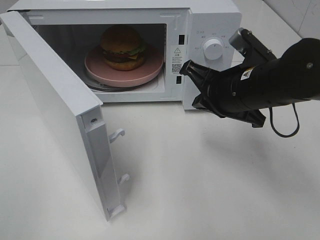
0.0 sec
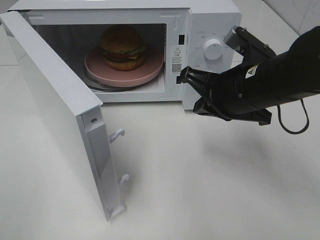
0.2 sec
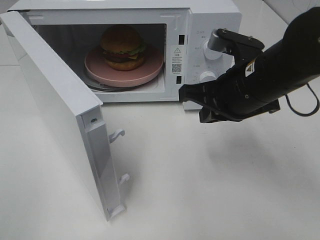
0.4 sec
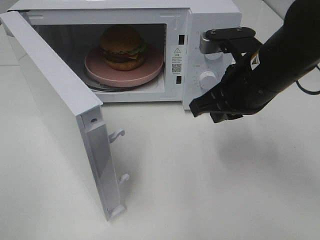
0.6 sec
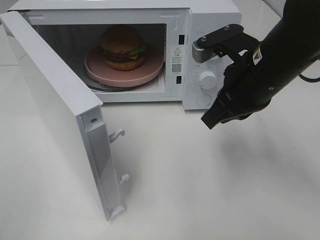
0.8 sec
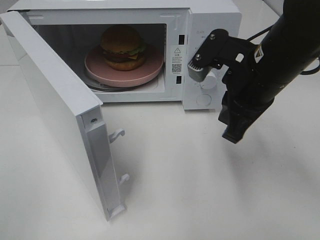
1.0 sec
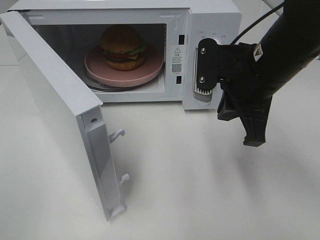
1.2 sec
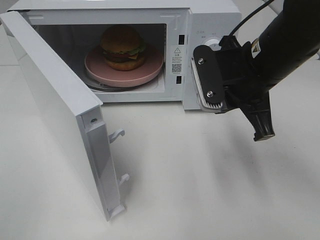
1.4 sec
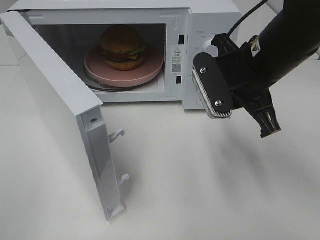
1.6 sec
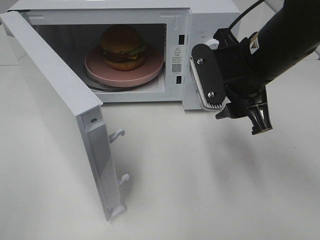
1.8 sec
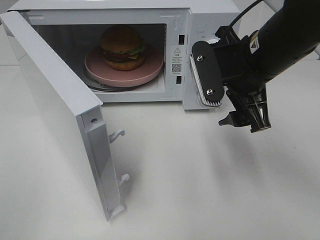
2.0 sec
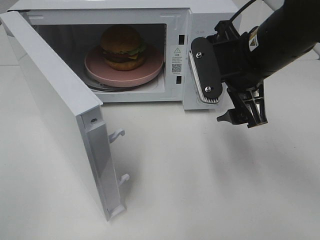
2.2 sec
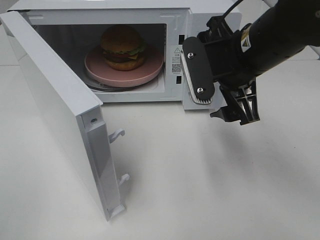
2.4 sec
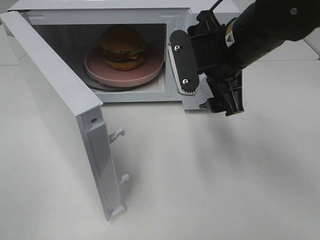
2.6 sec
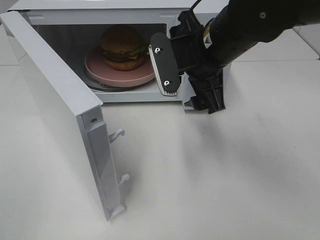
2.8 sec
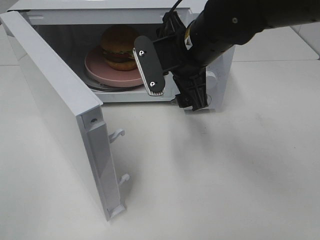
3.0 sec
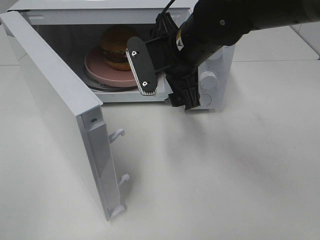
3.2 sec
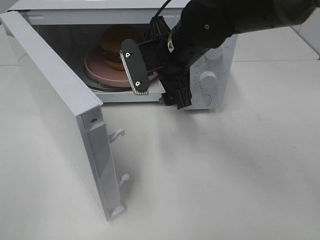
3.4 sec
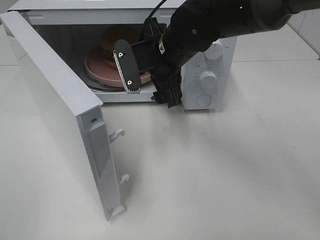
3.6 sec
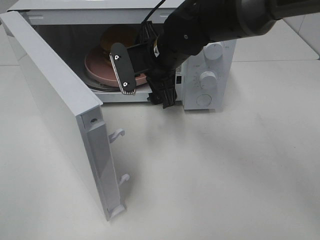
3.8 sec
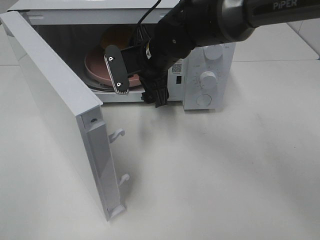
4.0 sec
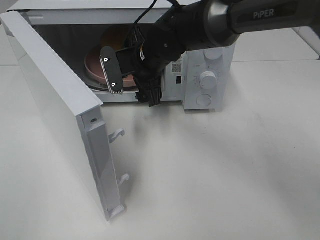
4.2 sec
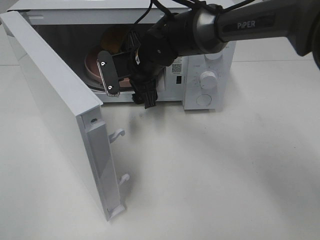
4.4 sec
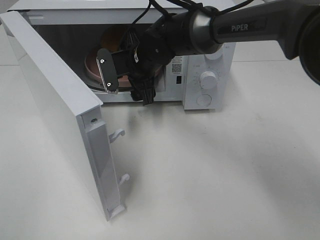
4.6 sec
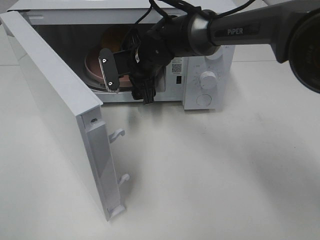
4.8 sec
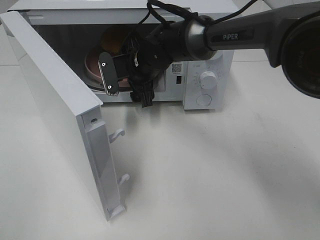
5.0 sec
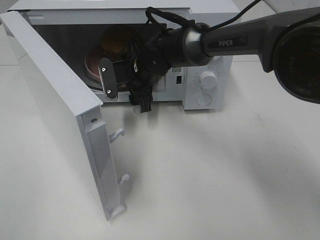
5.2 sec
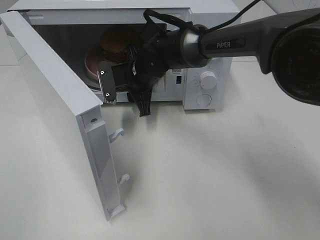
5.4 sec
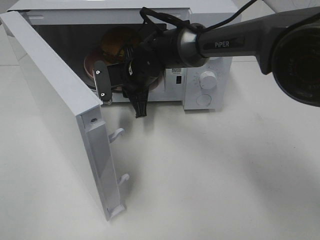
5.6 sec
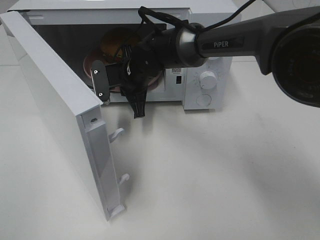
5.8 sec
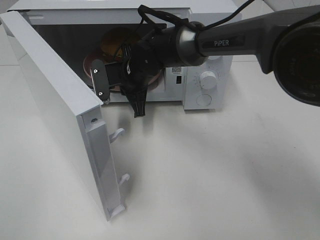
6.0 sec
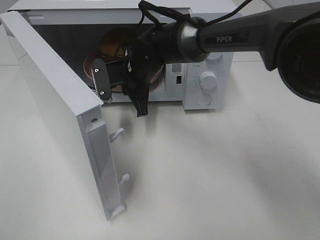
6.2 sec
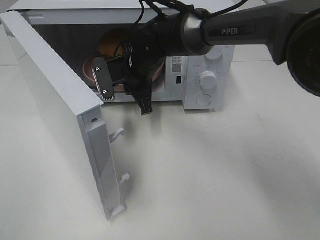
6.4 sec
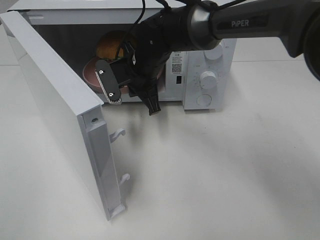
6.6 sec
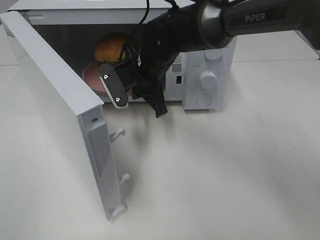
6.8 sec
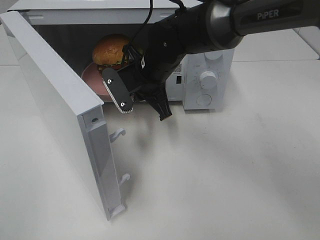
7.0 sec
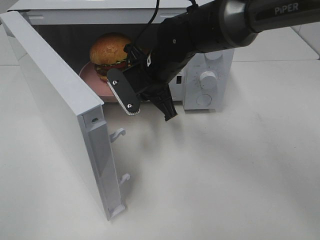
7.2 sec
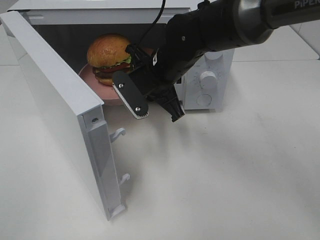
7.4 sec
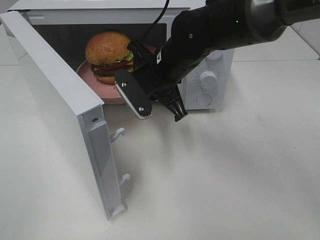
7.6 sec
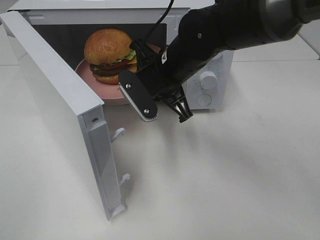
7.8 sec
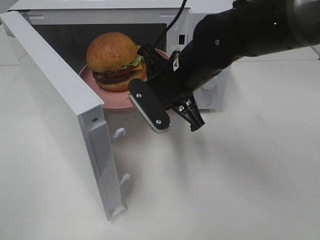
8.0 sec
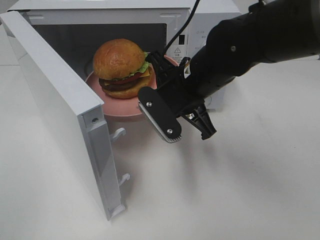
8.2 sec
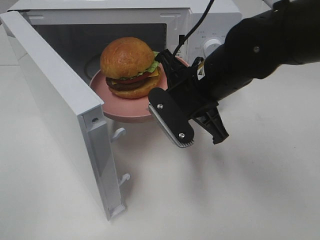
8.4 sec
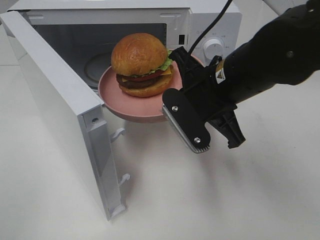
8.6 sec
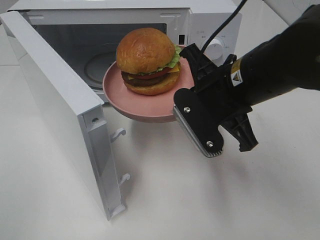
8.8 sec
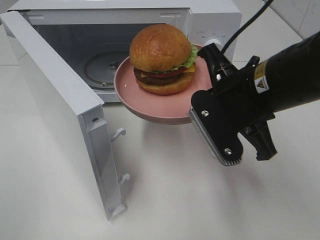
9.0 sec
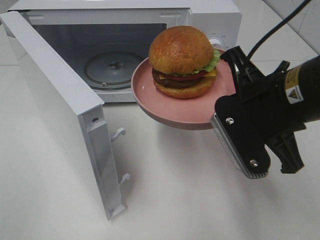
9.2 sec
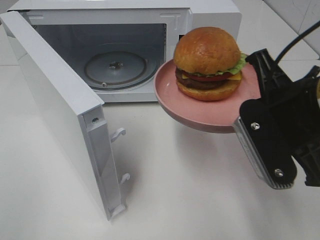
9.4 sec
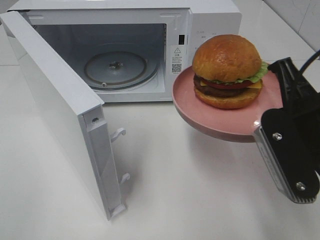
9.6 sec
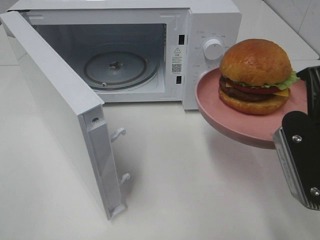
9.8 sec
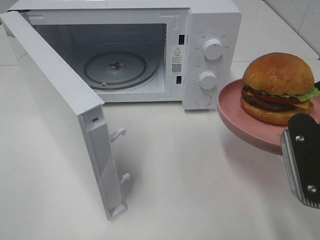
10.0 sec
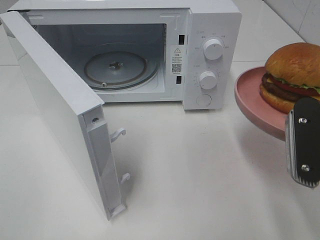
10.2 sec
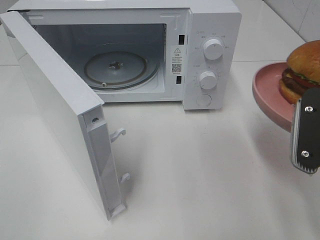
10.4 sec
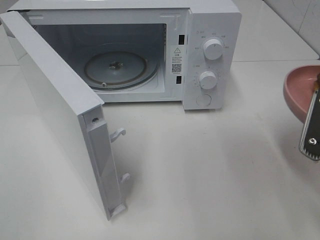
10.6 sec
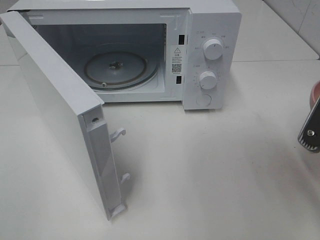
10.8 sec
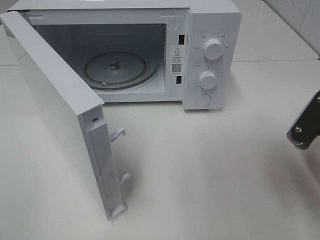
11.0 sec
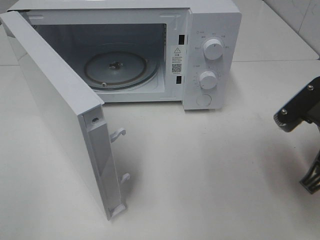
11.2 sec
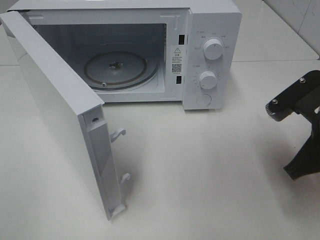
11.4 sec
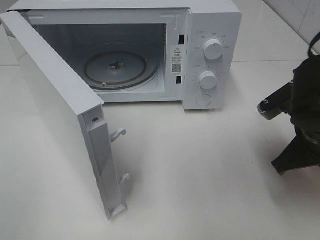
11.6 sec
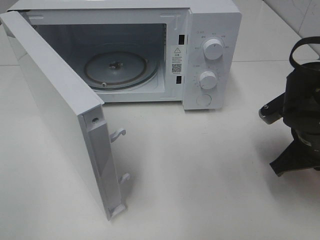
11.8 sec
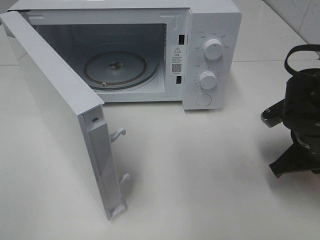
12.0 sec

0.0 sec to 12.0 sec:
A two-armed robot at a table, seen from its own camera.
Task of the whole recording: Heat the burger.
Step, 0.0 sec to 6.0 sec: Right hand: grab the plate with the hamburger.
1.6 sec to 3.0 sec: The right gripper moves to the left, approximately 10 cm, and opens its fingers.
3.0 sec to 4.4 sec: The right gripper shifts some 15 cm forward, downward and to the left.
4.4 sec to 6.0 sec: The right gripper closes.
6.0 sec to 7.6 sec: The right gripper moves backward, upward and to the right, approximately 10 cm.
7.6 sec to 9.0 sec: The right gripper is displaced backward and to the right by some 15 cm.
9.0 sec to 10.4 sec: The right gripper travels to the right and backward by about 10 cm.
10.4 sec to 12.0 sec: The right gripper is displaced downward and forward by some 15 cm.

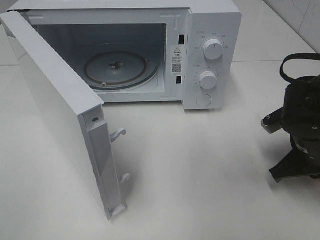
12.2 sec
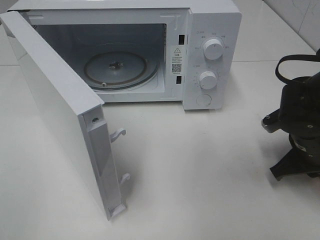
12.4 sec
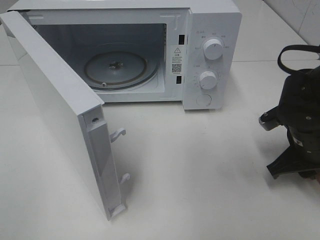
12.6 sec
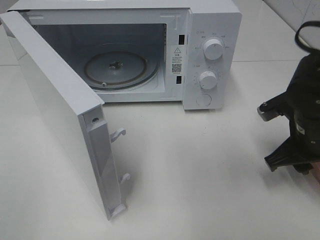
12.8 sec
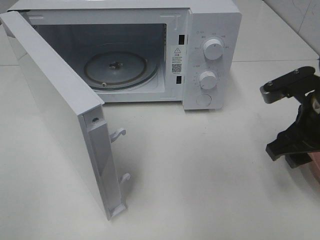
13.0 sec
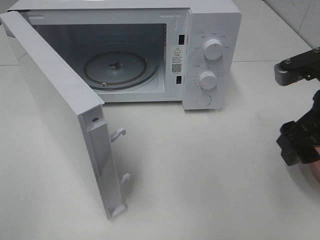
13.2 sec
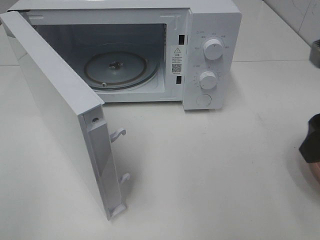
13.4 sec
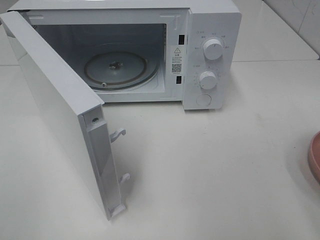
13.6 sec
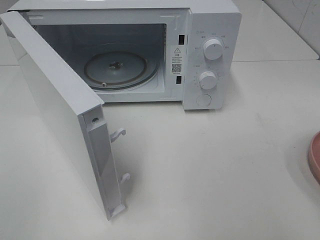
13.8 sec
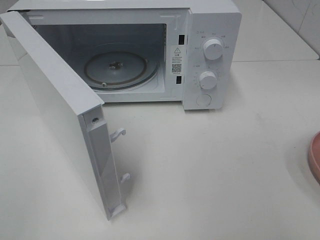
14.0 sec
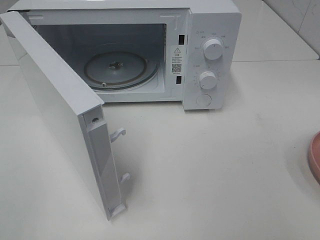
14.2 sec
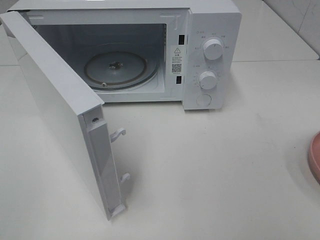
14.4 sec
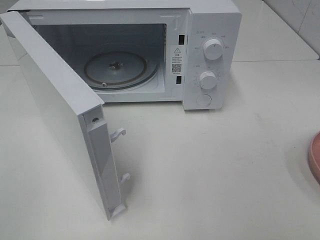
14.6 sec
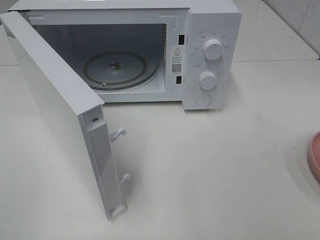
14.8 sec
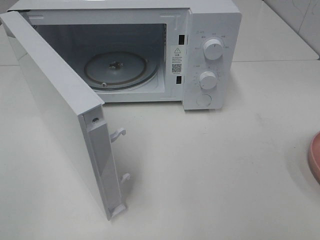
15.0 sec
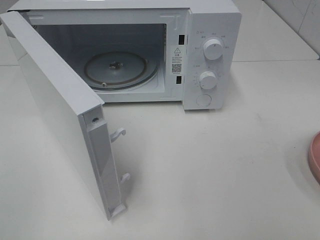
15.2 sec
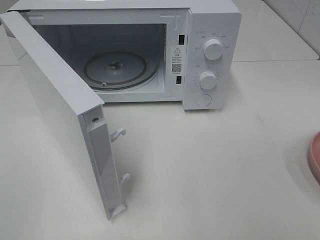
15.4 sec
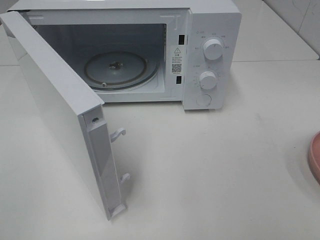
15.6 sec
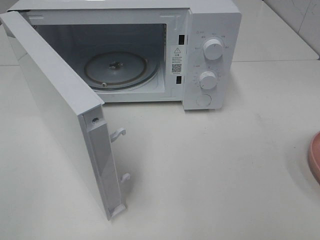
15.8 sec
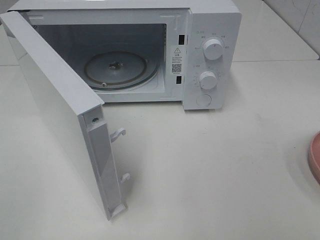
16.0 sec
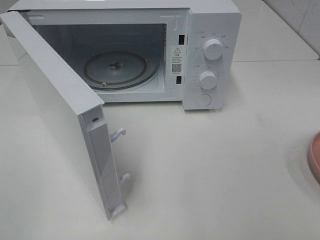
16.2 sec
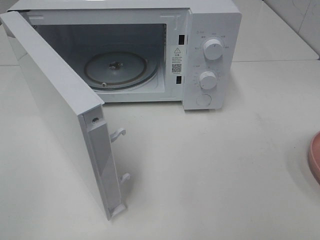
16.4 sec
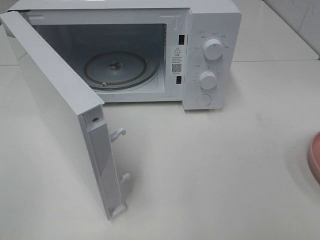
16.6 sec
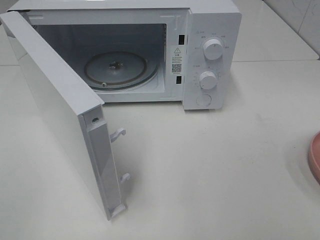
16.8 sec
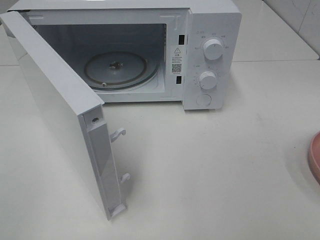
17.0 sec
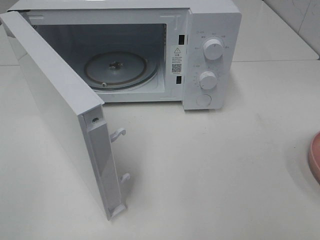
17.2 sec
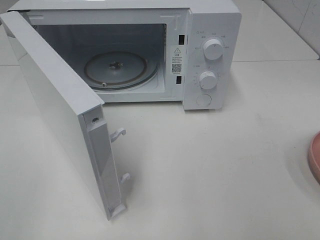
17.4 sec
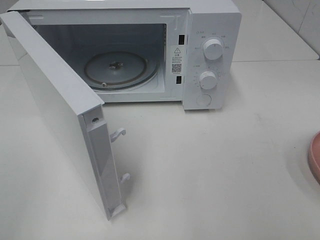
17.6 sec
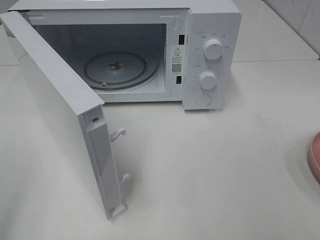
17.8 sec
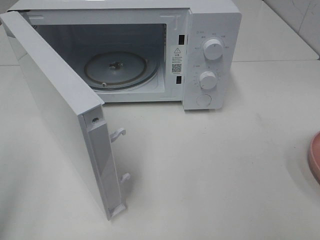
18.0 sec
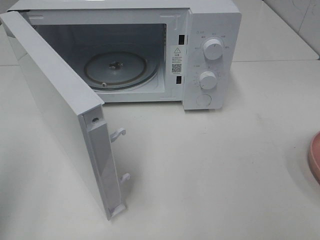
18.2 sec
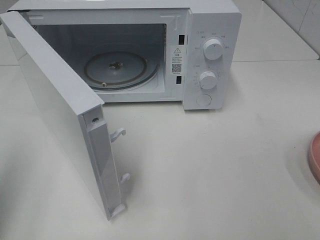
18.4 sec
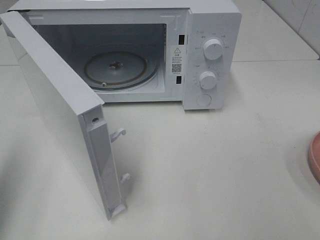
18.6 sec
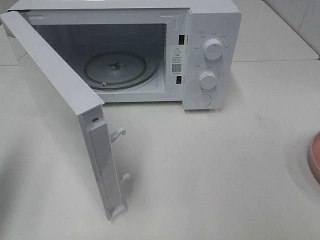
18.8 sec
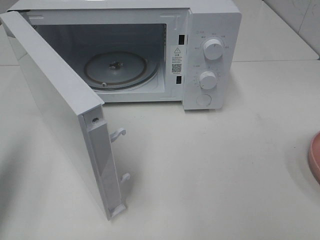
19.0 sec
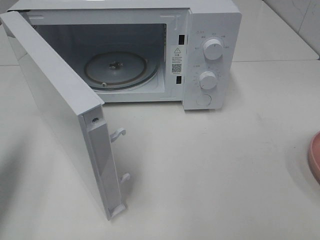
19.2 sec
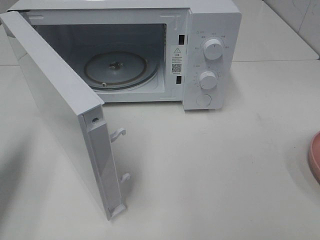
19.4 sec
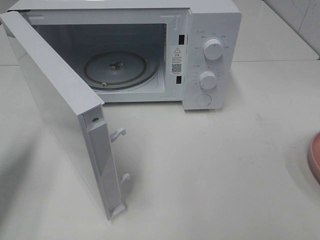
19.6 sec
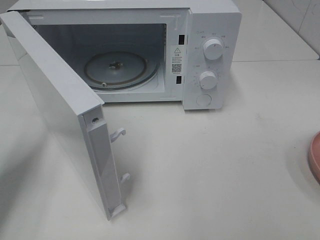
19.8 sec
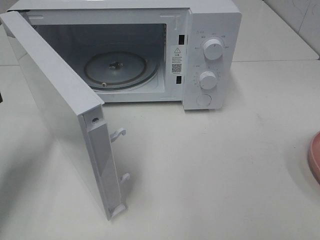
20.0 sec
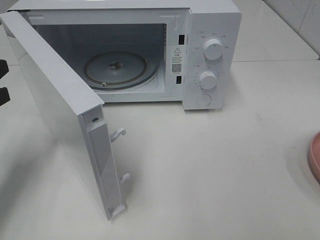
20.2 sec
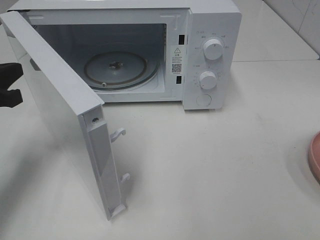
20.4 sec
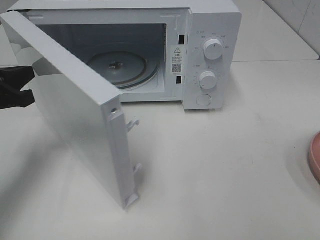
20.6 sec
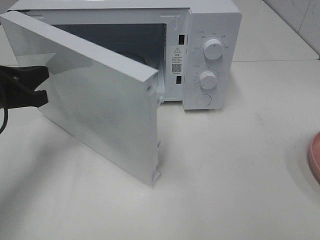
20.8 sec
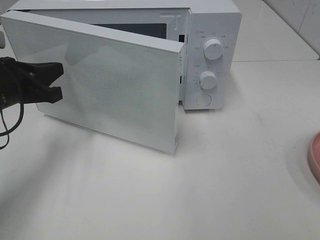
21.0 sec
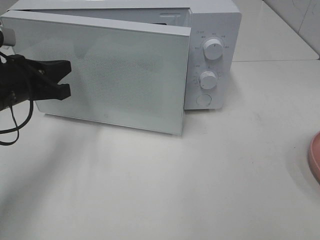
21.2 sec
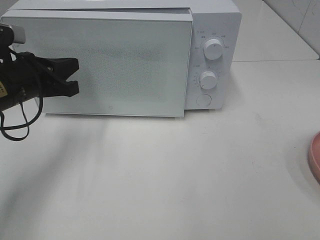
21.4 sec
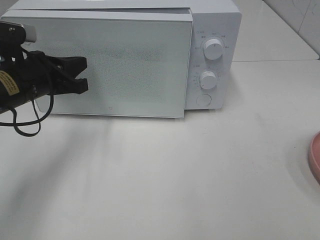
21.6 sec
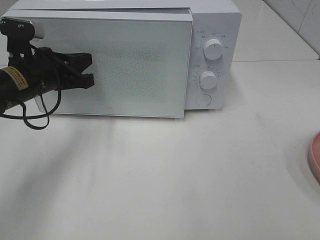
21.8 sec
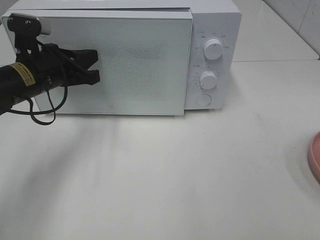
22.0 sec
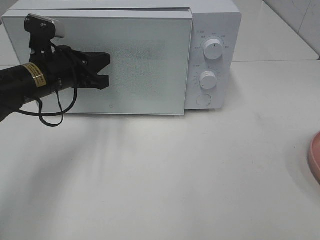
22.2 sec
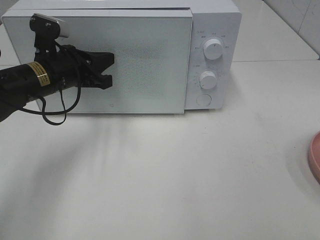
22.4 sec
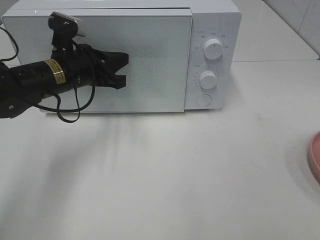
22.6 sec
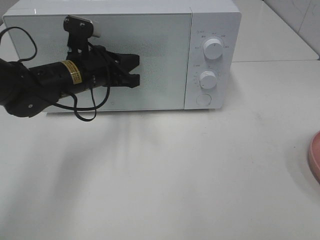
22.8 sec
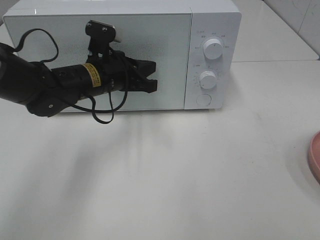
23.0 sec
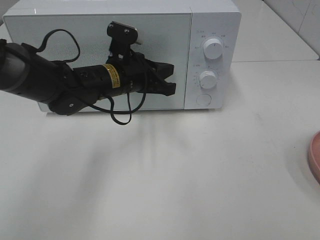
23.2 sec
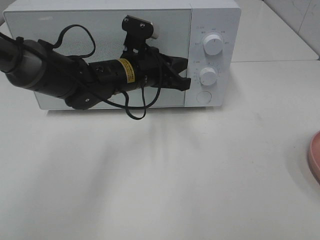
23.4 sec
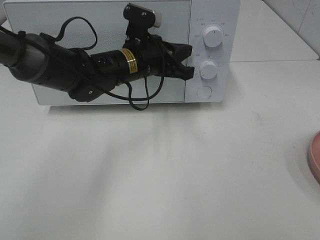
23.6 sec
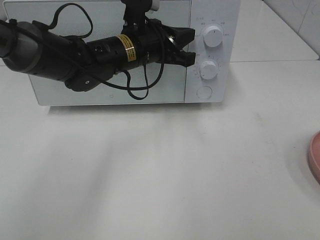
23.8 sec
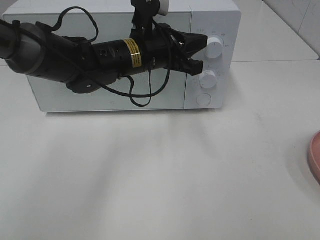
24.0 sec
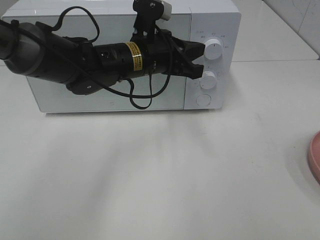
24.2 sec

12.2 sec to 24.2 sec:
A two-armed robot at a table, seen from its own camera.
Task of the whole recording: Heat the burger.
Step, 13.4 sec to 23.4 sec: Left hand: close the microwave door.
12.2 sec to 13.8 sec: The right gripper shifts approximately 25 cm upward and backward, and opens its fingers.
15.2 sec to 16.6 sec: Neither gripper changes place.
18.2 sec to 19.8 sec: The left gripper goes about 15 cm forward and downward.
19.8 sec to 21.2 sec: The left gripper is displaced to the right and forward by approximately 10 cm.
21.2 sec to 22.6 sec: The left gripper travels to the right and forward by roughly 10 cm.
22.6 sec to 24.2 sec: The left gripper moves to the right, about 10 cm.
